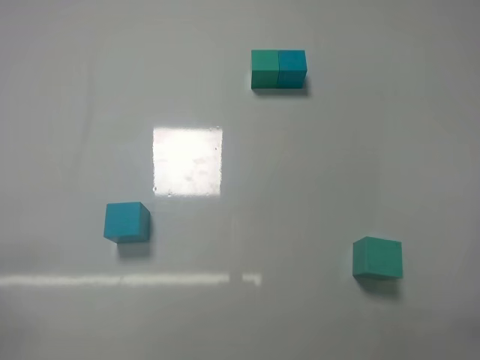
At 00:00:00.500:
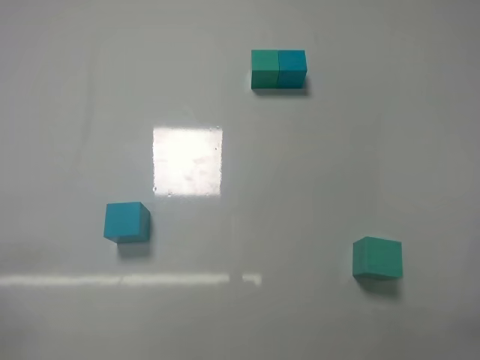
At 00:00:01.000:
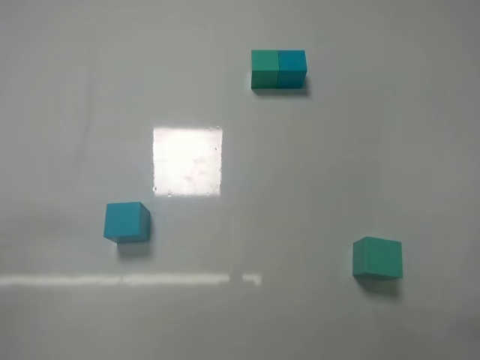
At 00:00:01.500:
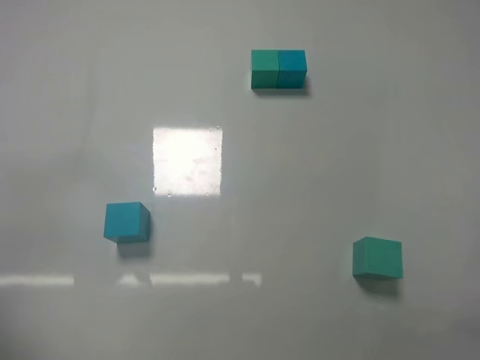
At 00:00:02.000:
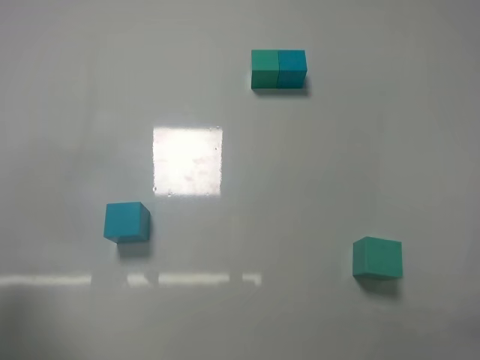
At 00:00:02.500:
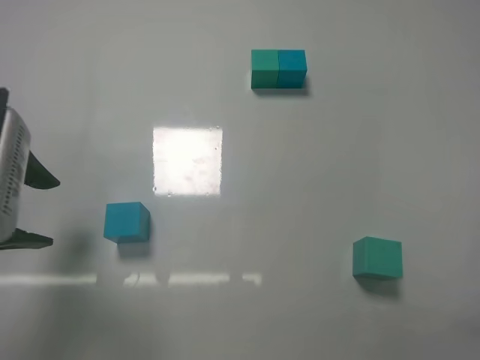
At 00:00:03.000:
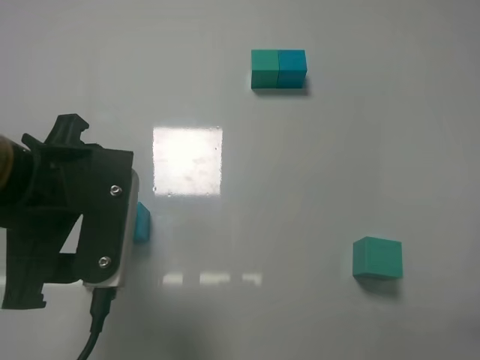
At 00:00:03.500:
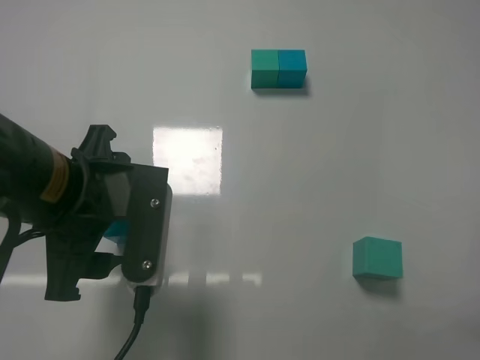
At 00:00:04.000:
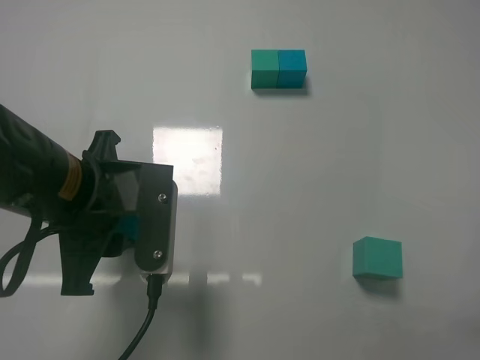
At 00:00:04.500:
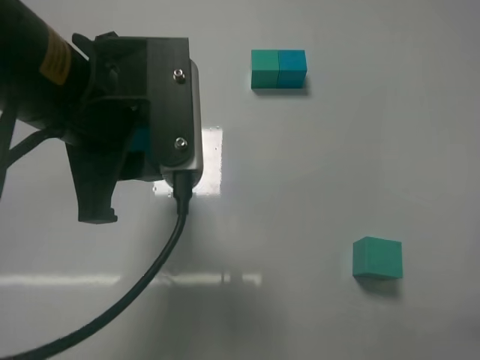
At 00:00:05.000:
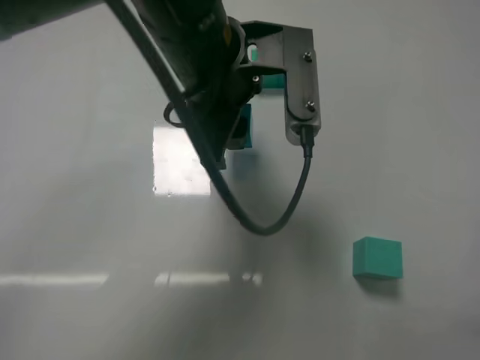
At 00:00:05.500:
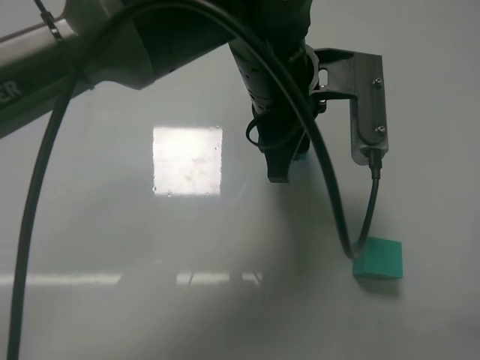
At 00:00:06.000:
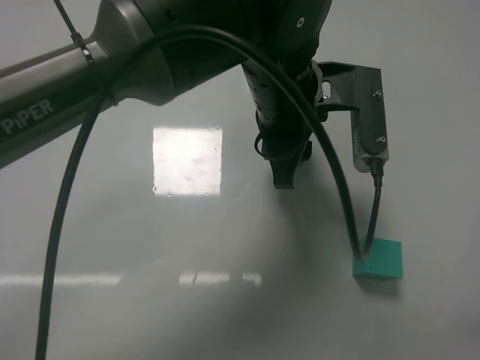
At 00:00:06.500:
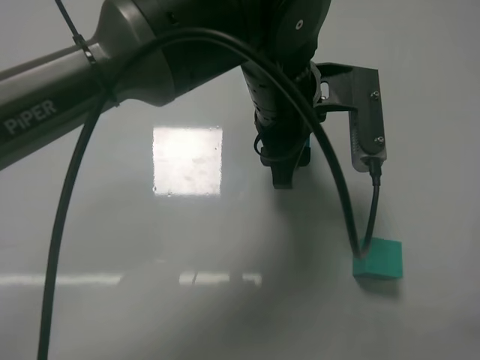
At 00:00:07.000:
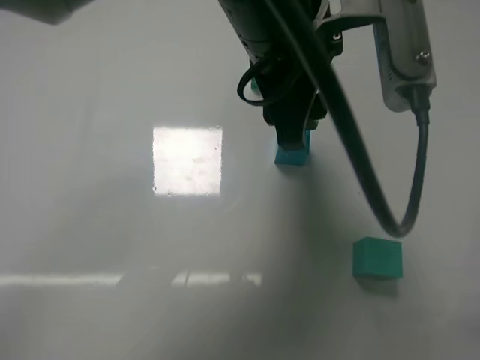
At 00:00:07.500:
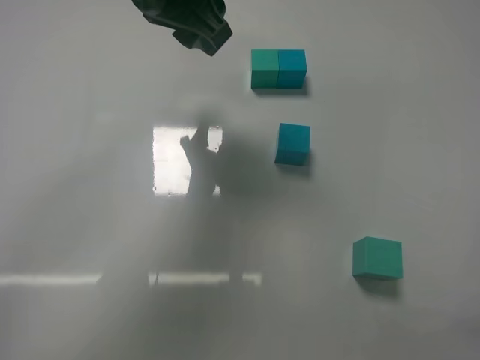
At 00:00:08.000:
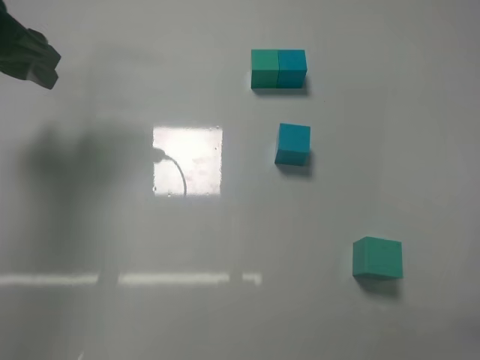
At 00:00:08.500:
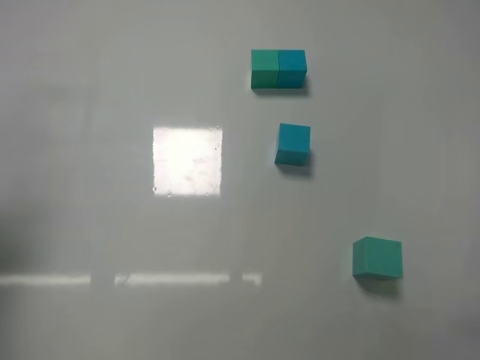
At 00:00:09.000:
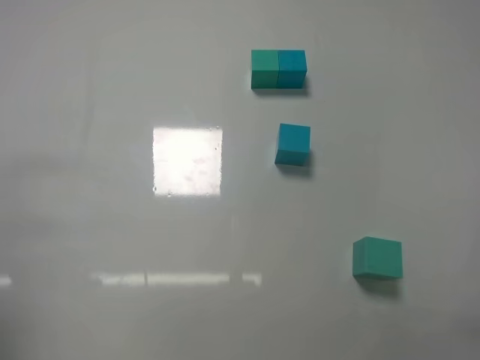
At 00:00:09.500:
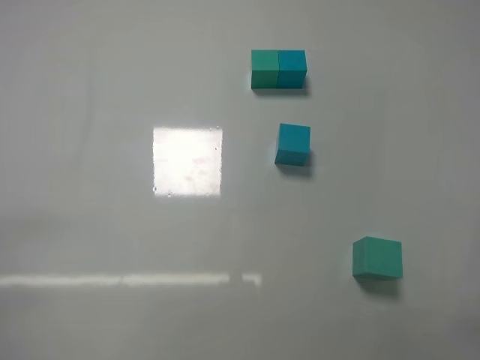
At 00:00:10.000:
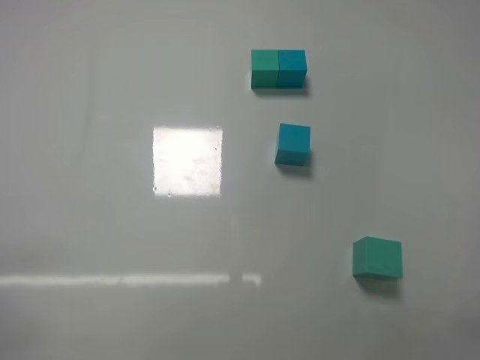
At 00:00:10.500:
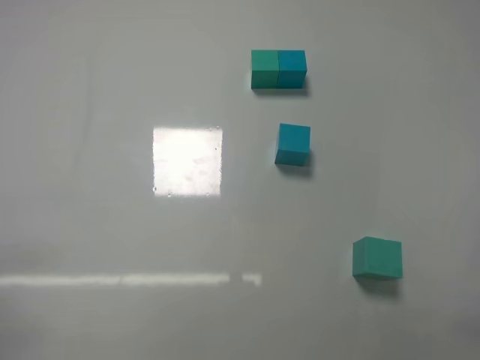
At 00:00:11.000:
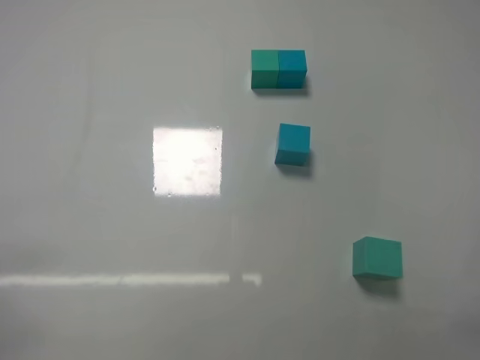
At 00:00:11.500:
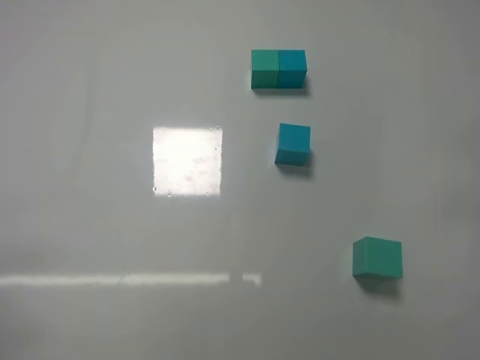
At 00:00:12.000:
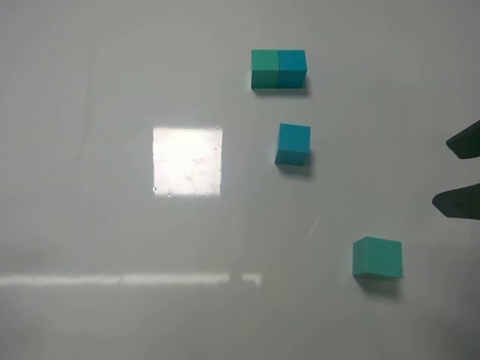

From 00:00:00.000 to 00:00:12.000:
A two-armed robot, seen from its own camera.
Task of the whole recording: According to the building block template in front, assemble the scattered blocks together.
Step, from 00:00:00.000 to 00:00:03.500: Grasp the blue block with left gripper.
Step, from 00:00:04.000 to 00:00:06.500: Adjust the position of the cube with the left gripper.
From 00:00:00.000 to 00:00:02.000: The left gripper goes some 20 cm upward and forward.
From 00:00:02.000 to 00:00:04.000: The left gripper goes some 20 cm to the right, forward and downward, and closes its fingers.
From 00:00:04.000 to 00:00:06.000: The left gripper moves to the right and forward, roughly 20 cm.
From 00:00:06.000 to 00:00:08.000: The left gripper heads to the left, covering approximately 30 cm, and opens.
From 00:00:08.000 to 00:00:10.000: The left gripper is displaced backward and downward by roughly 35 cm.
From 00:00:10.000 to 00:00:12.000: The right gripper is displaced forward, upward and to the left by roughly 20 cm, and opens.

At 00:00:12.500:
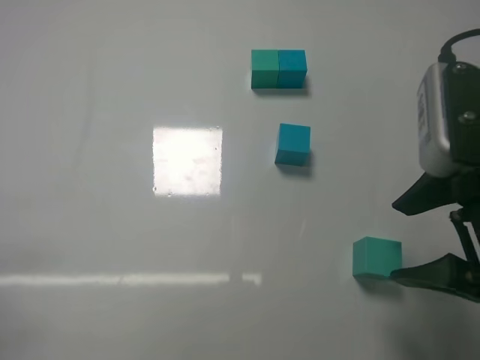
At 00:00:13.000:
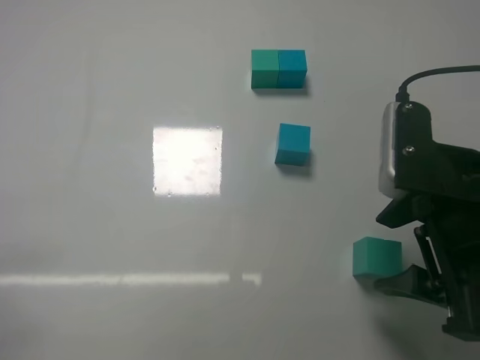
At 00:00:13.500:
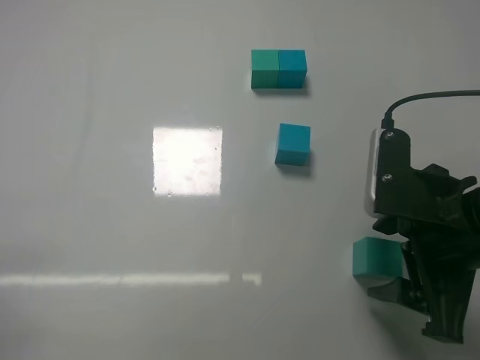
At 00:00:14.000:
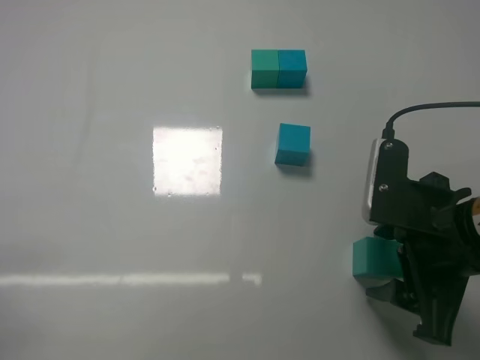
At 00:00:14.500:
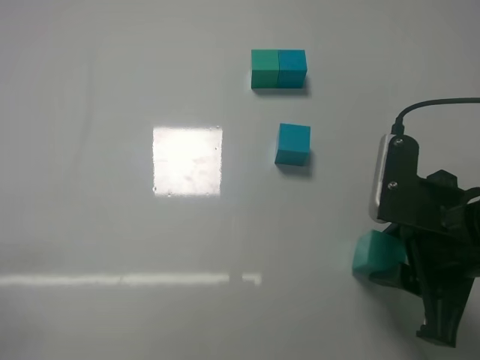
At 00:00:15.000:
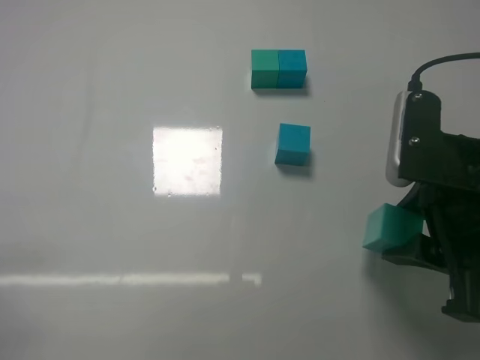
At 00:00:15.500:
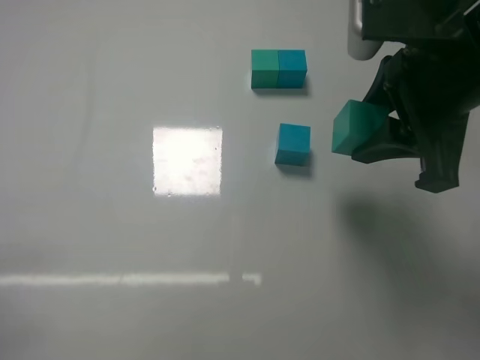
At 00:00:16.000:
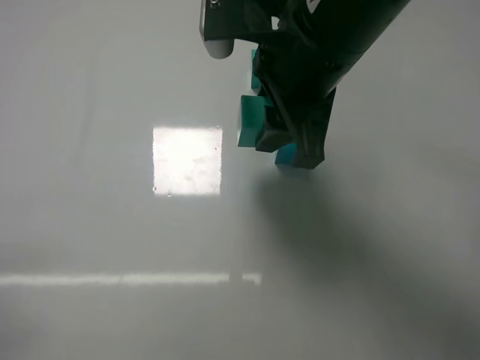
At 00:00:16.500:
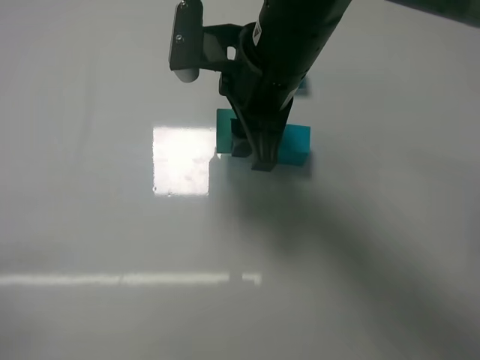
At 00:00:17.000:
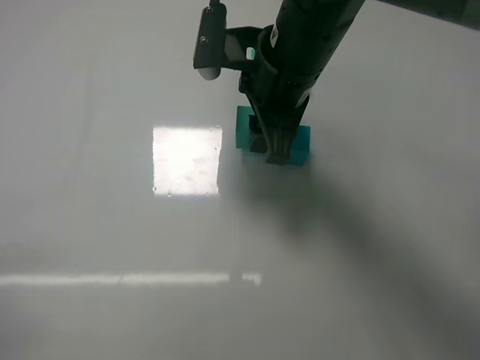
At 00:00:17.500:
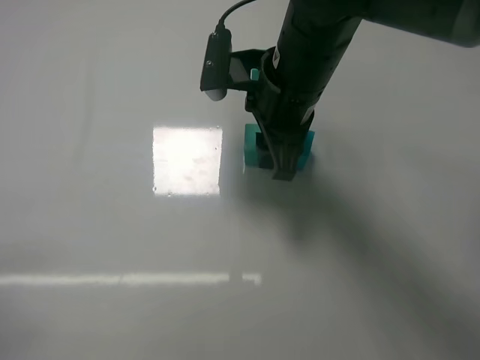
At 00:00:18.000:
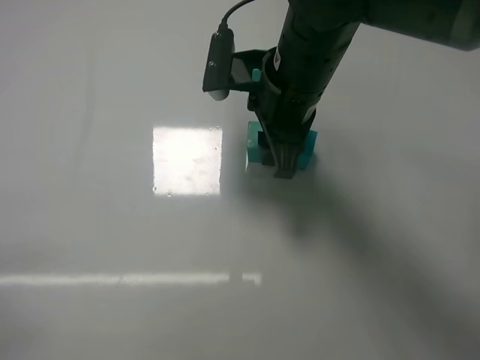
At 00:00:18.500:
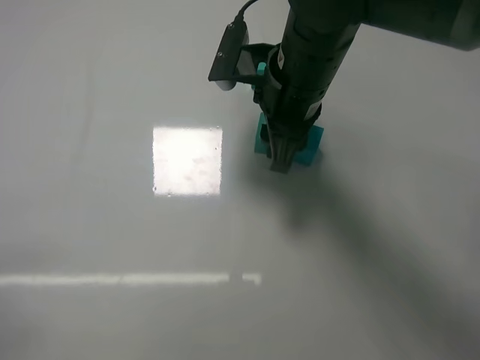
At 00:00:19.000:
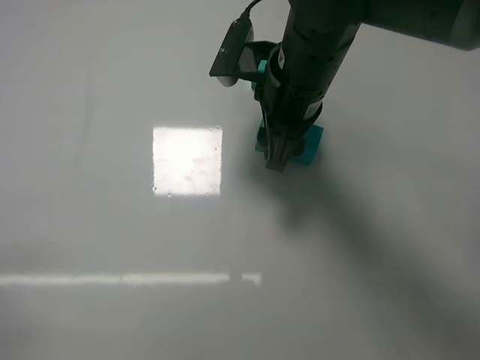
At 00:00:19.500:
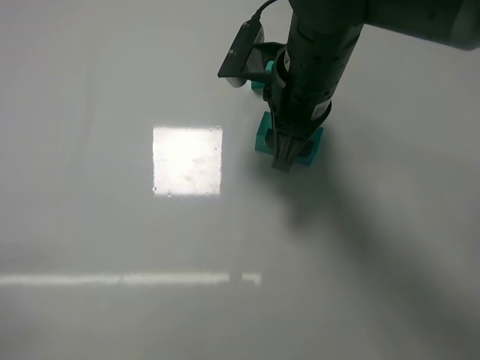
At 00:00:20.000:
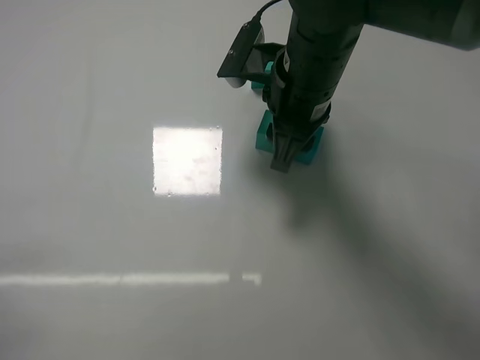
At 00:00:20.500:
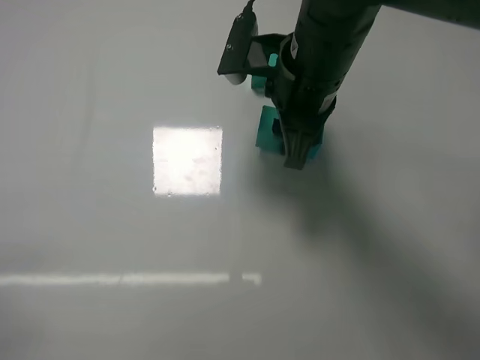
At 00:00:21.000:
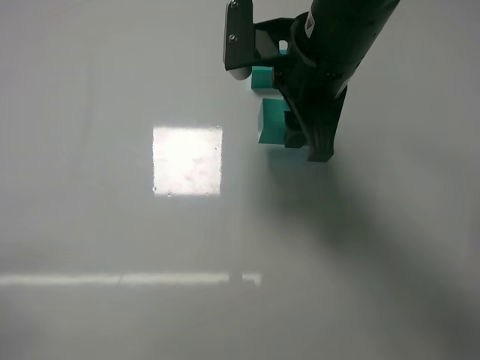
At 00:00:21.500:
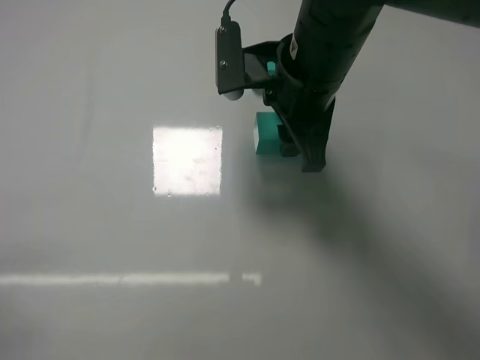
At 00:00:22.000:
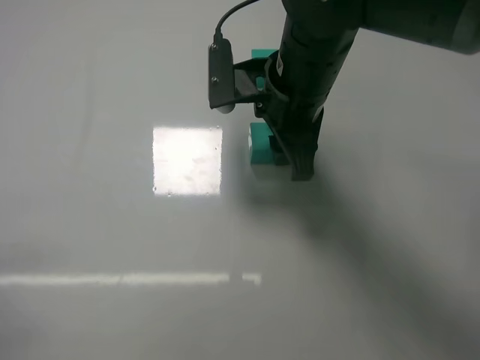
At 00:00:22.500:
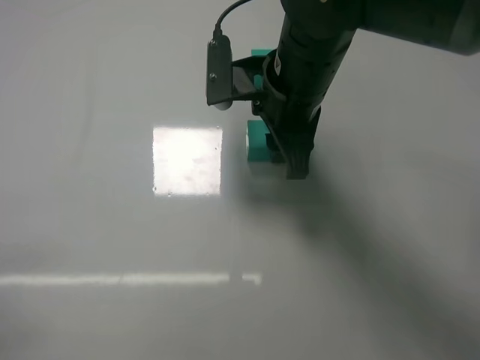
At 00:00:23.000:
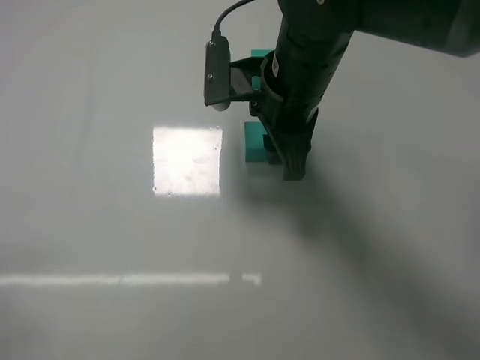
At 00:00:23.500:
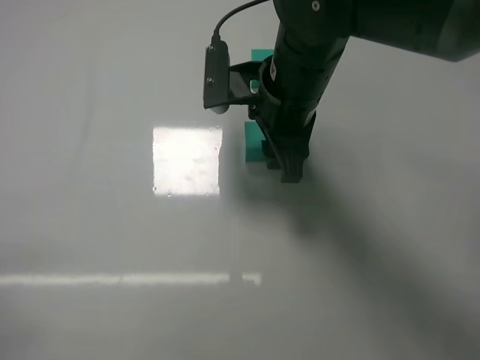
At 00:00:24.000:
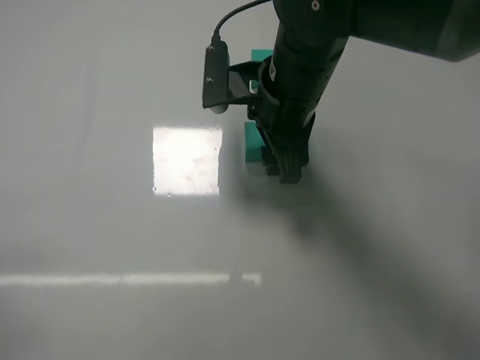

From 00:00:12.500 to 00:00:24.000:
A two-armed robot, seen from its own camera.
Task of the whole recording: According to the building block template in front, assemble the scattered blocks together.
Step, from 00:00:14.500 to 00:00:19.000: Put the green cube on the right of the blue cube with the right gripper.
From 00:00:12.500 to 00:00:14.500: The right gripper heads downward, covering roughly 5 cm, and closes its fingers.
From 00:00:14.500 to 00:00:16.500: The right gripper shifts about 20 cm to the left, forward and upward.
From 00:00:16.500 to 00:00:18.500: The grippers make only small movements.
From 00:00:18.500 to 00:00:20.000: The right gripper opens and closes again.
From 00:00:22.000 to 00:00:24.000: The right gripper opens.

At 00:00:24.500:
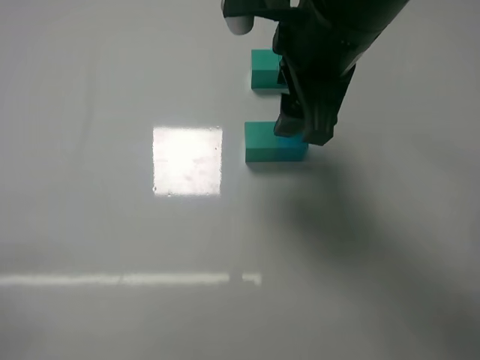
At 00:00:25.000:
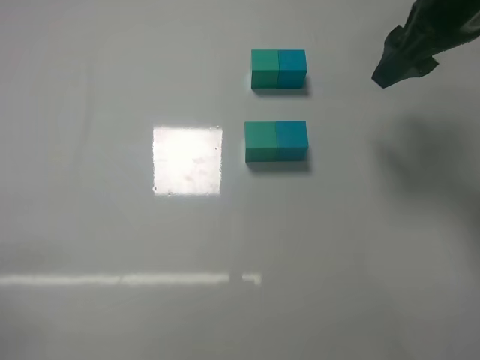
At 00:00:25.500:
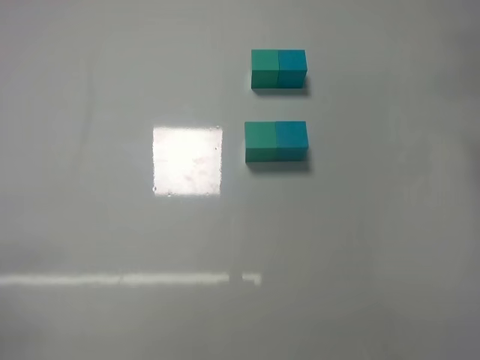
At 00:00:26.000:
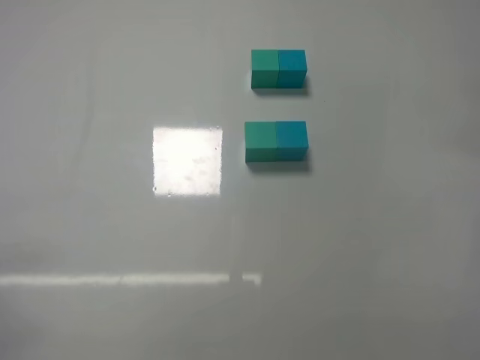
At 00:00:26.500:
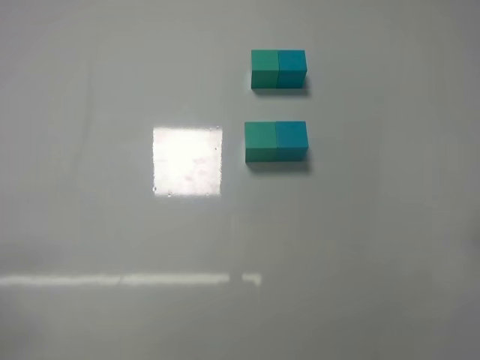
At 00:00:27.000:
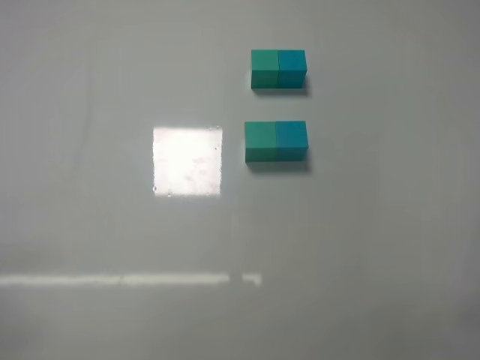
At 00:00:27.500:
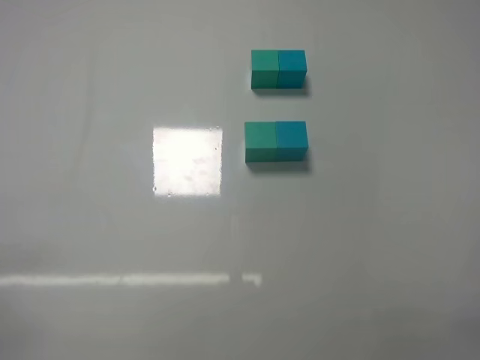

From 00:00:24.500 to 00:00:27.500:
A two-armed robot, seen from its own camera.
Task of the whole recording: According to the building block template in front, assemble the scattered blocks together.
From 00:00:24.500 to 00:00:26.000: The right gripper shifts about 25 cm to the right.
